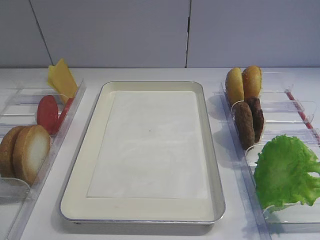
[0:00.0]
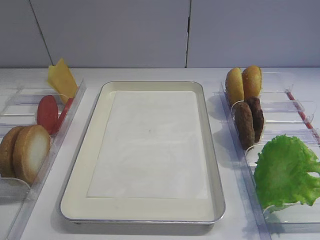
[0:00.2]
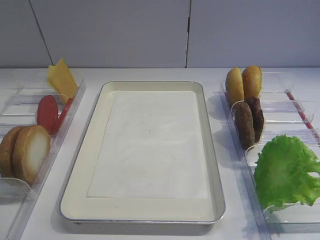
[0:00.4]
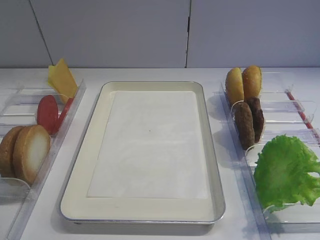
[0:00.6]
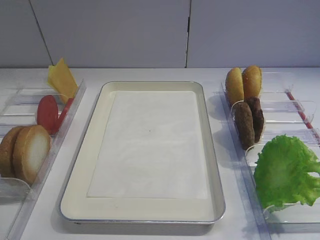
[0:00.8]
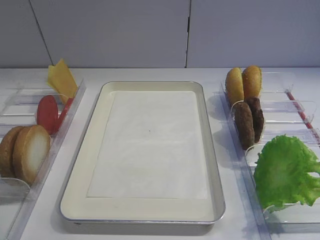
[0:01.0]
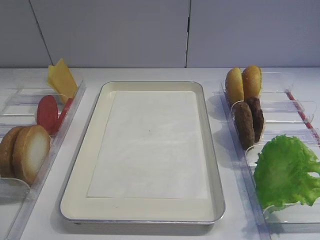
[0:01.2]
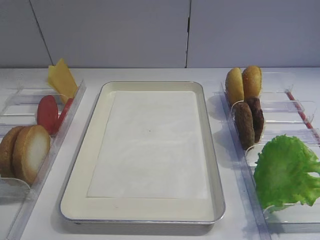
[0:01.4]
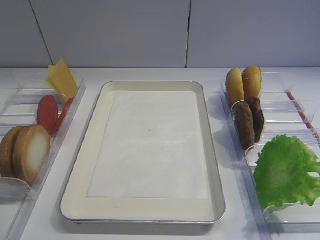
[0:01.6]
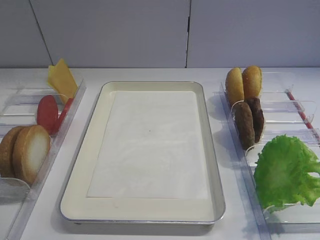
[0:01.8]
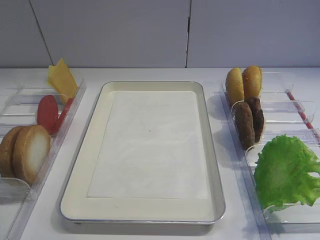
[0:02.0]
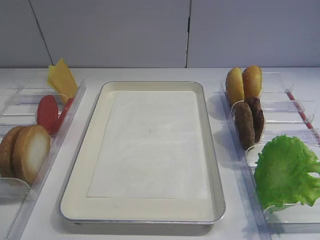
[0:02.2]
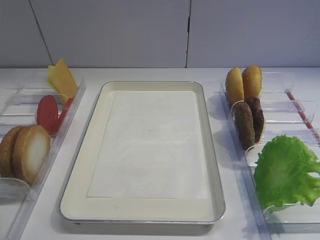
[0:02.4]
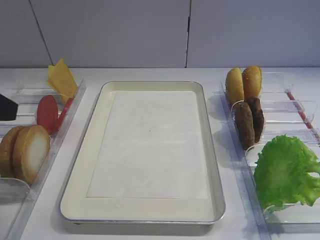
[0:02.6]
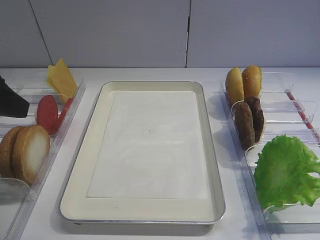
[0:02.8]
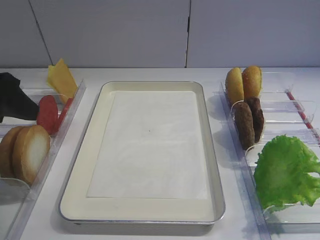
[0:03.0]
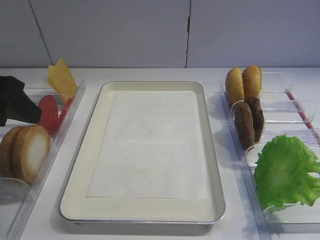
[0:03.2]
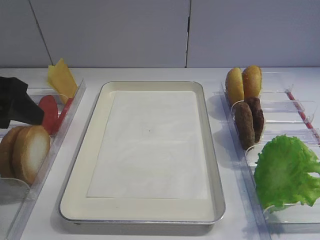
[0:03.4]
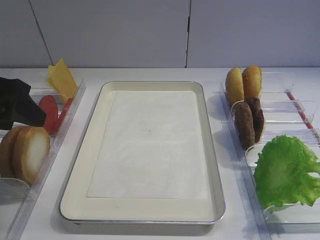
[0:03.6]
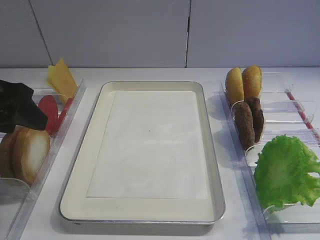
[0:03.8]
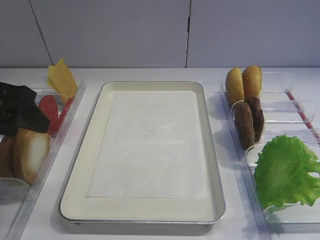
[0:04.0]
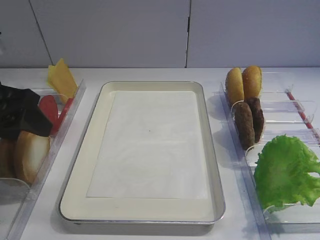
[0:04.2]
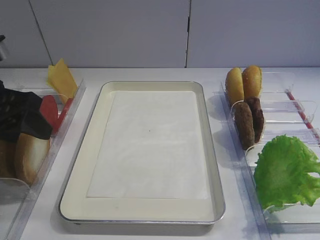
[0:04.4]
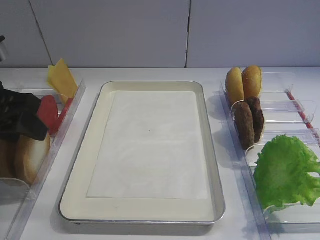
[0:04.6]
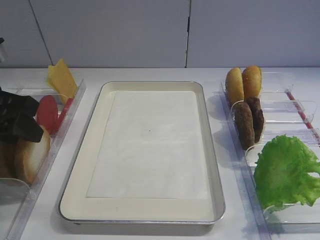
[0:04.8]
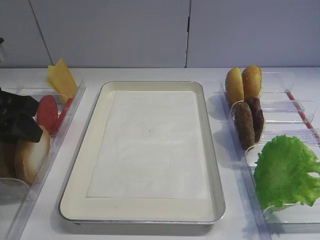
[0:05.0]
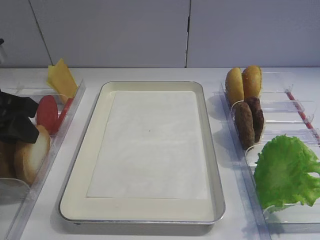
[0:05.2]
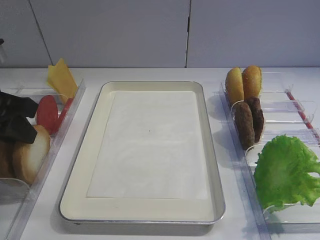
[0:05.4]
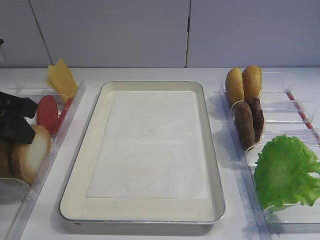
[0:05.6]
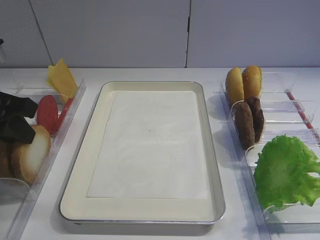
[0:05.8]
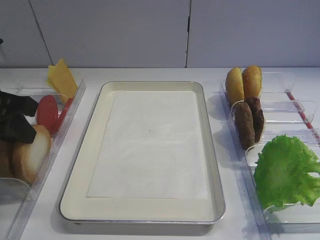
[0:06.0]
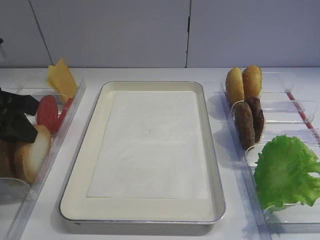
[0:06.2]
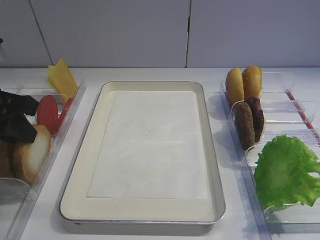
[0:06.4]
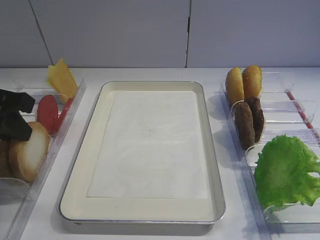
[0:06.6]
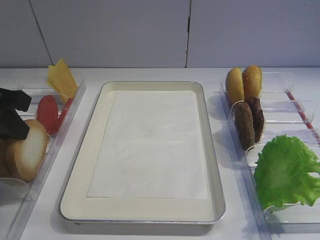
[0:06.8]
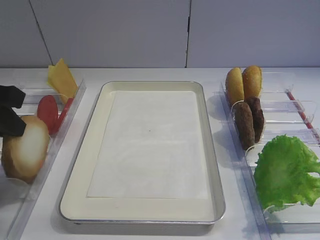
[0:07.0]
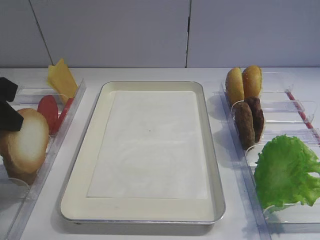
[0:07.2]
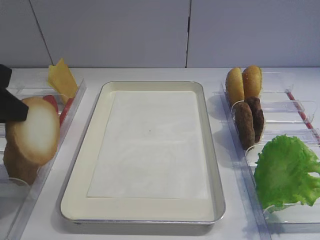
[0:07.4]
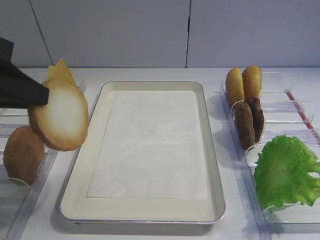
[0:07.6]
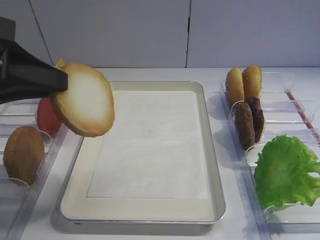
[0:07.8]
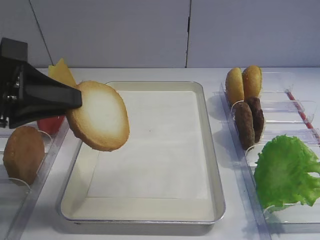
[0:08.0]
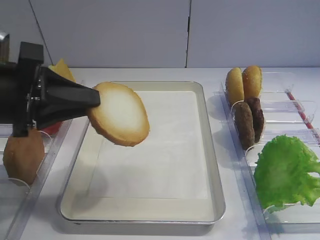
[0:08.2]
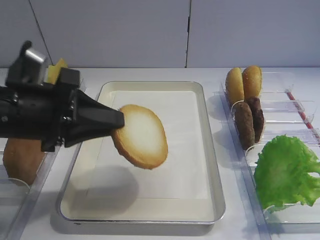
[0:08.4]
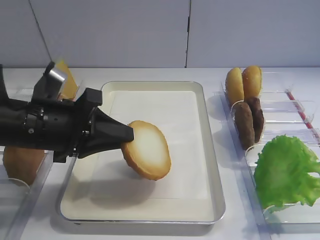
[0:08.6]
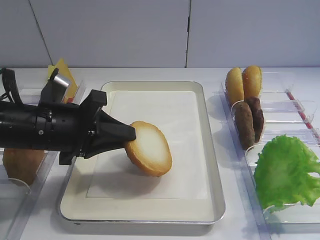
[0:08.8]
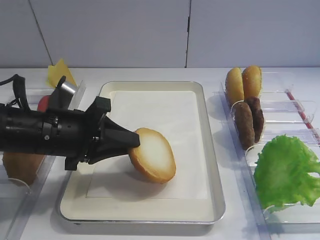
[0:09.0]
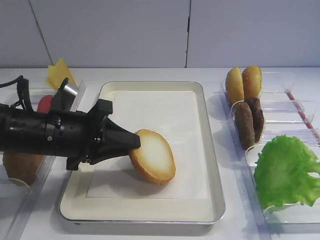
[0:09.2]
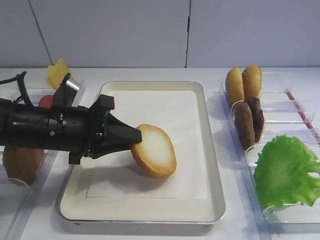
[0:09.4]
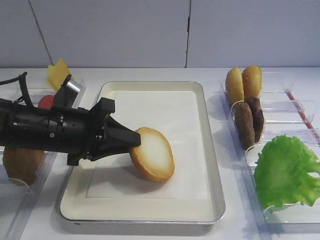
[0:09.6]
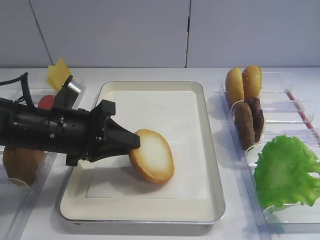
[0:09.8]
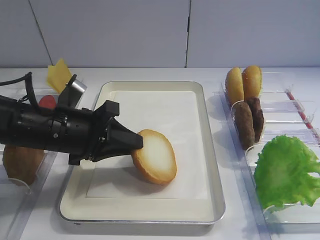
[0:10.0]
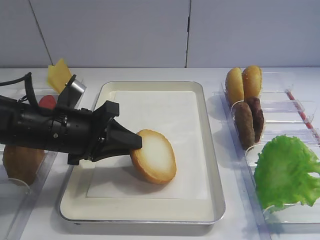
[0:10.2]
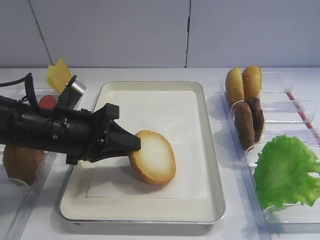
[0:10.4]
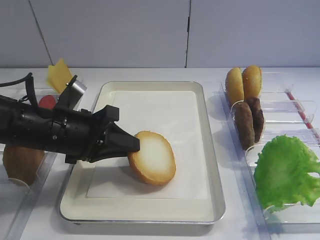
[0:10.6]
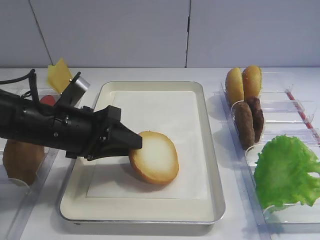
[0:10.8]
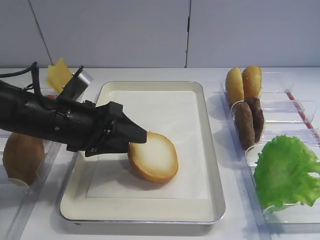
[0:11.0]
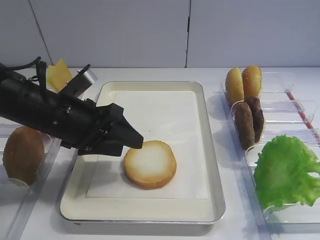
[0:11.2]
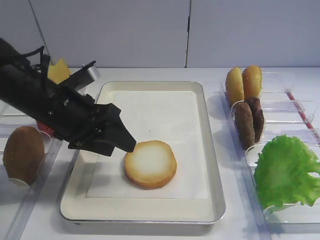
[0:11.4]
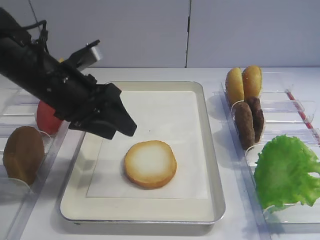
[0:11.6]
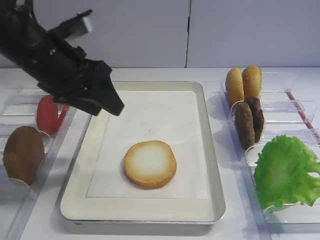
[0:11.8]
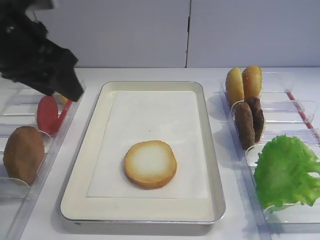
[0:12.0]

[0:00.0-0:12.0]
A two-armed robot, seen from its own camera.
Step, 0:00.0 to 0:07.0: Pick up the bread slice with the left gripper.
Step, 0:07.2 to 0:11.6: Place the bread slice on the tray with the left gripper.
0:01.6 to 0:03.0: The left gripper is displaced forward by approximately 20 cm.
0:03.0 to 0:04.4: The left gripper changes place by approximately 5 cm.
0:04.4 to 0:06.0: The left gripper closes its fingers.
0:06.0 to 0:07.6: The left gripper travels upward and backward by approximately 10 cm.
0:07.6 to 0:09.0: The left gripper moves downward, to the right and forward, approximately 15 cm.
0:09.0 to 0:10.4: The grippers stay close to where they were, moving slightly.
0:10.4 to 0:12.0: The left gripper shifts about 15 cm upward, and opens its fingers.

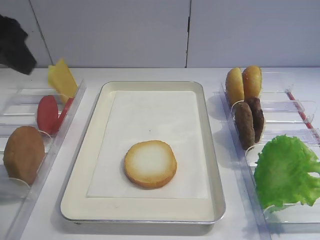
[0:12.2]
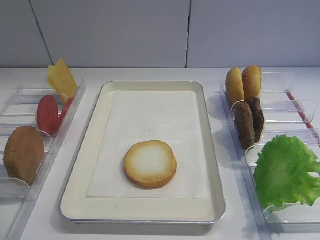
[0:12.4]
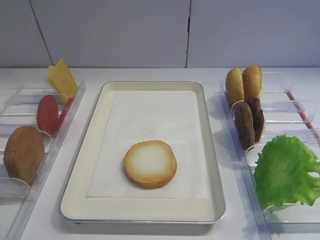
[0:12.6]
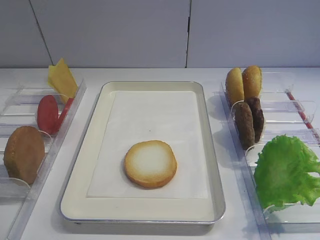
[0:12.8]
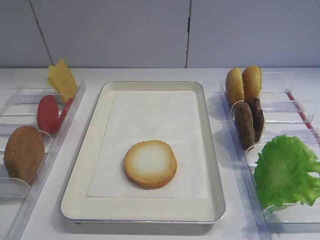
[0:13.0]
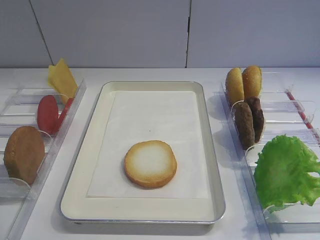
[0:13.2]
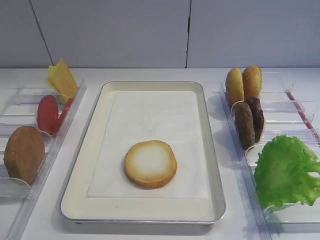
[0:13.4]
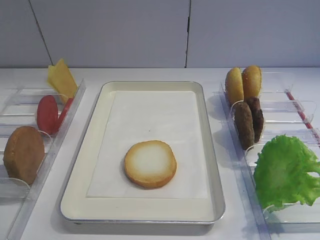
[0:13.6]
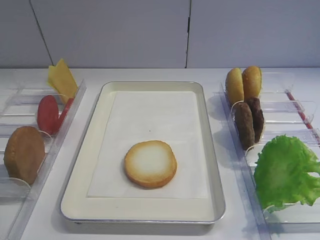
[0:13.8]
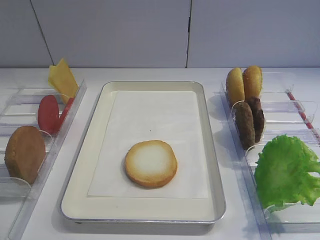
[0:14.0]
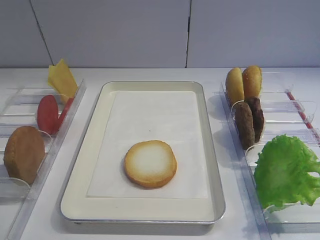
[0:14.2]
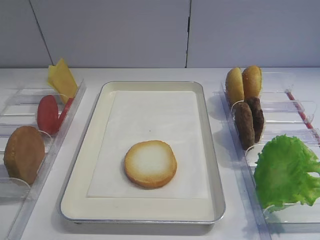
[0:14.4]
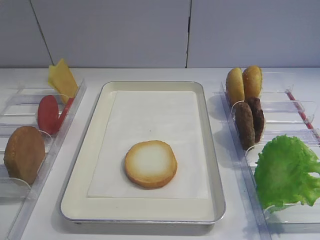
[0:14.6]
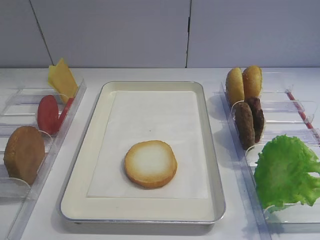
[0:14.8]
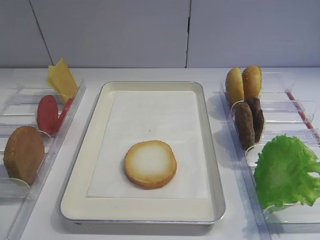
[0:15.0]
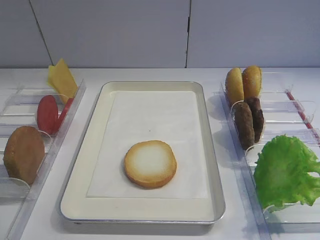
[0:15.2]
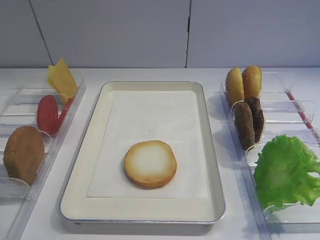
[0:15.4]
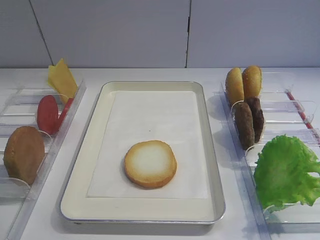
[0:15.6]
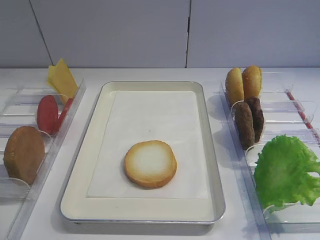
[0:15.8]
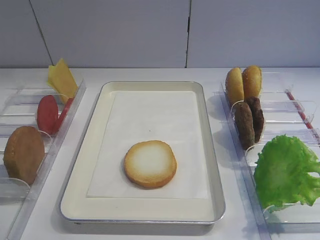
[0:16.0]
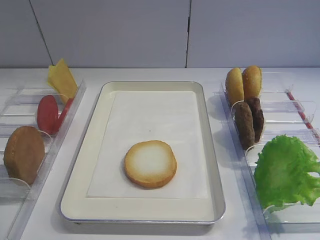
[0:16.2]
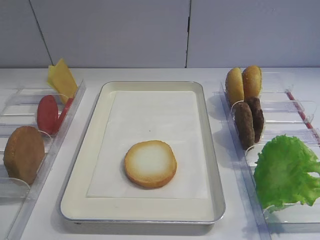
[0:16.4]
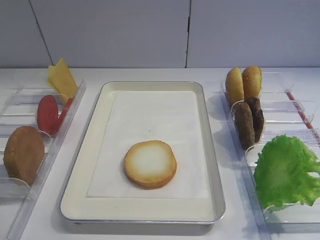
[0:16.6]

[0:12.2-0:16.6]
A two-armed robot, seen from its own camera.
0:12.2 to 0:13.6: The left gripper moves backward and downward, about 25 cm.
0:15.2 to 0:16.6: Both grippers stay put.

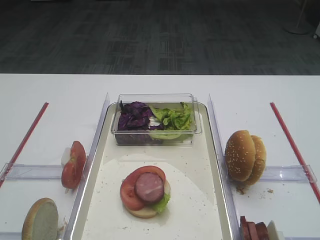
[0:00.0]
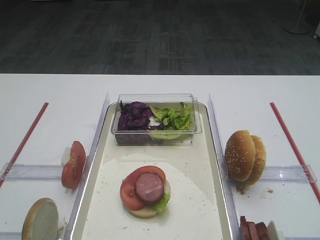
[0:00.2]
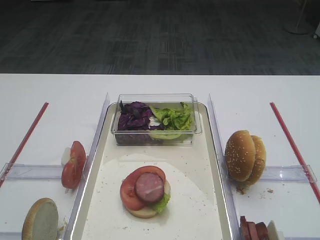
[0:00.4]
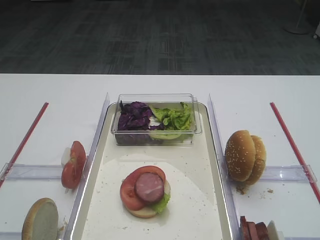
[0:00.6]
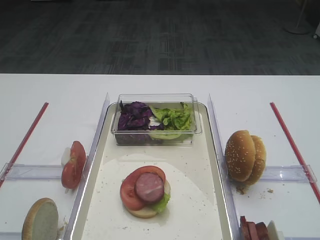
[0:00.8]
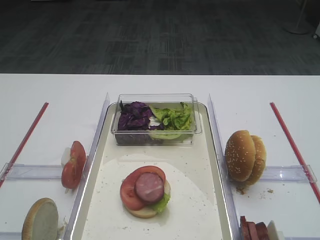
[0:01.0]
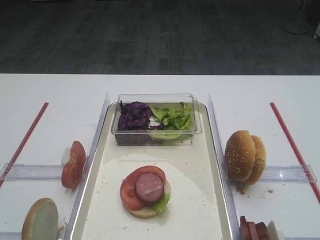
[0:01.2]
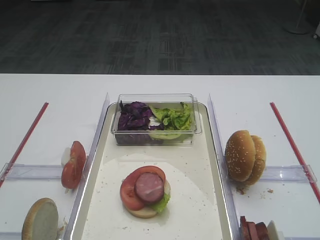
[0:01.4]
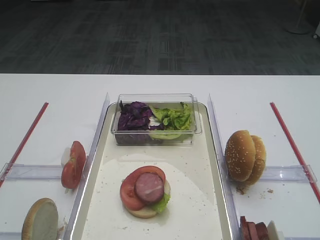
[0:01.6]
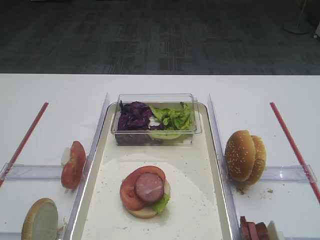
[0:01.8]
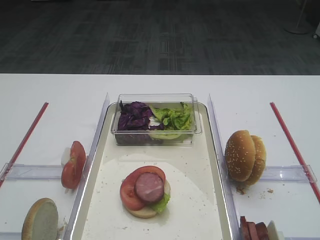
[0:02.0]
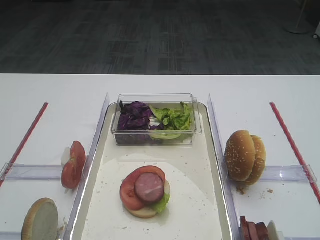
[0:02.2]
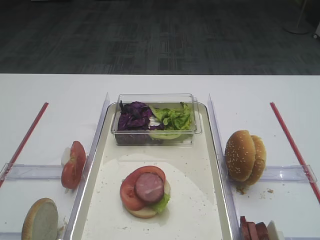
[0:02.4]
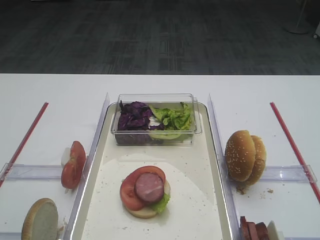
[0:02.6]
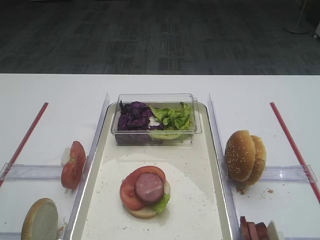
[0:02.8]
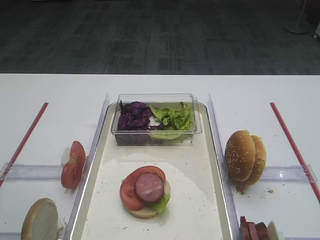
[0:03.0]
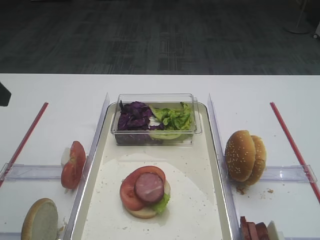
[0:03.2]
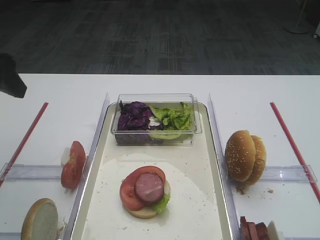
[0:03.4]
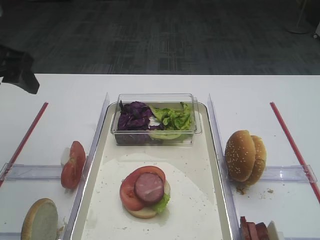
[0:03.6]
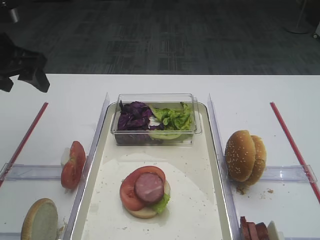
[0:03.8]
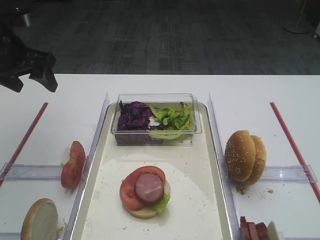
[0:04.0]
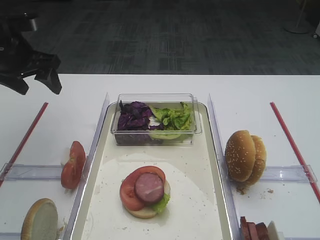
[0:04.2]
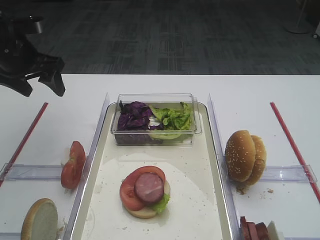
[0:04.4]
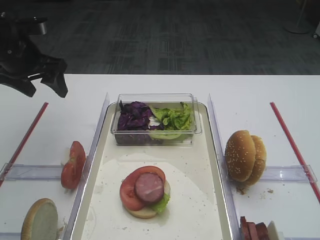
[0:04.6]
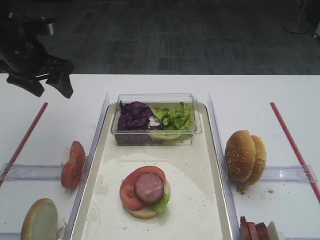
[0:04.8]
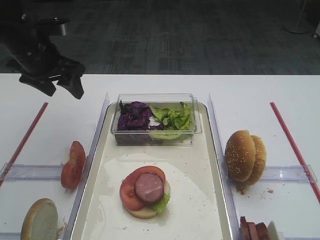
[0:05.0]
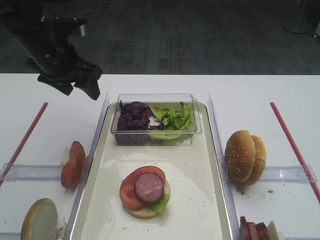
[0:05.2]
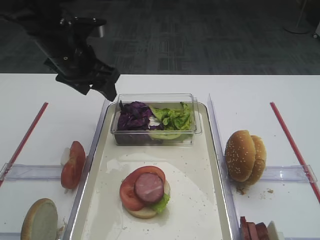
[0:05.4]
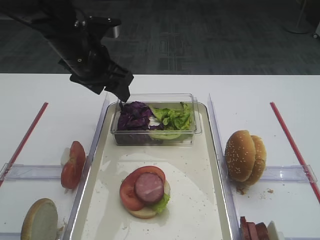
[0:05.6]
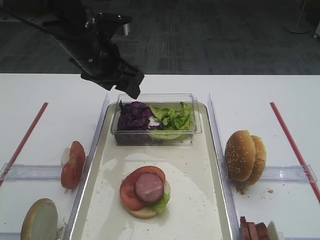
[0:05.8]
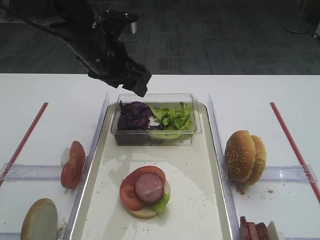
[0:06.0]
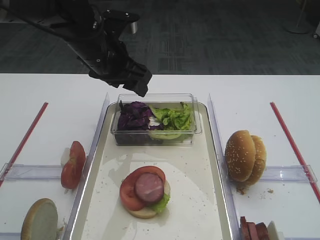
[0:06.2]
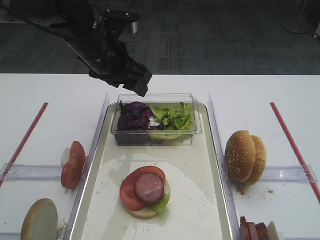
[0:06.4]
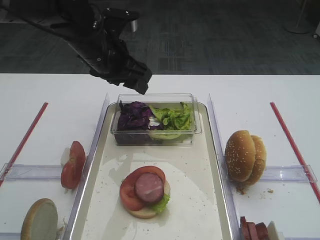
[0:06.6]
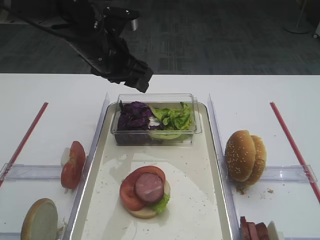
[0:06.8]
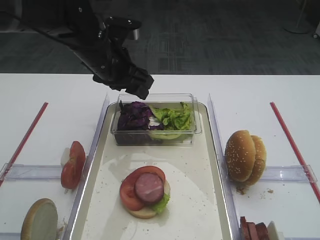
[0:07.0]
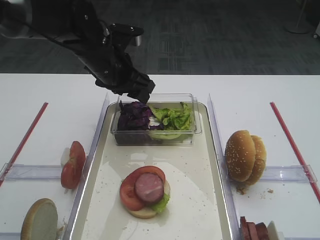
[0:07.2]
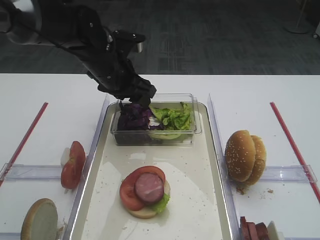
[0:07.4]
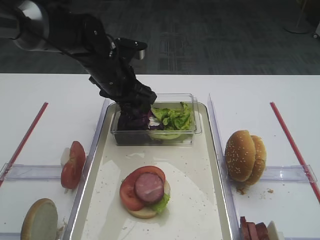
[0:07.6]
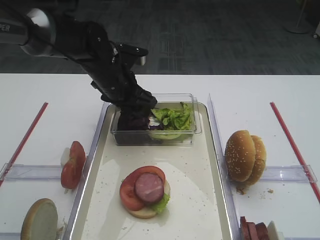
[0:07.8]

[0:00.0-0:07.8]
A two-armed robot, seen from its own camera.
0:03.2 to 0:04.6: The left gripper heads forward, covering roughly 20 cm.
0:04.6 to 0:06.2: The left gripper heads to the right, covering some 15 cm.
0:06.2 to 0:07.8: The left gripper goes about 5 cm downward.
